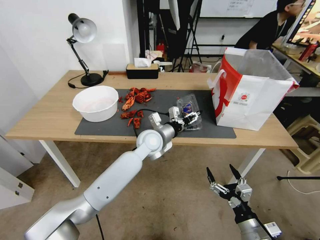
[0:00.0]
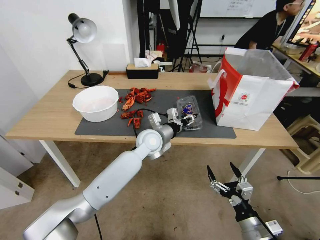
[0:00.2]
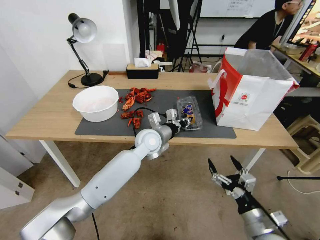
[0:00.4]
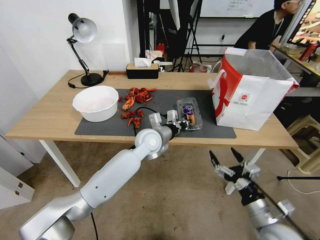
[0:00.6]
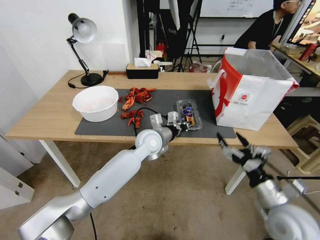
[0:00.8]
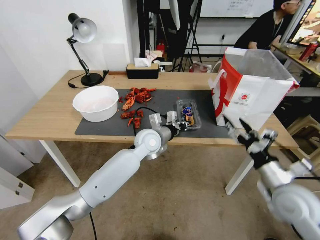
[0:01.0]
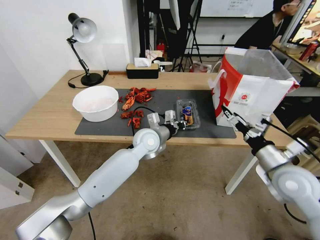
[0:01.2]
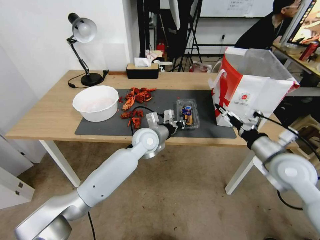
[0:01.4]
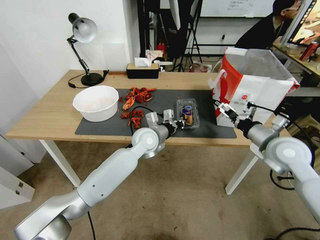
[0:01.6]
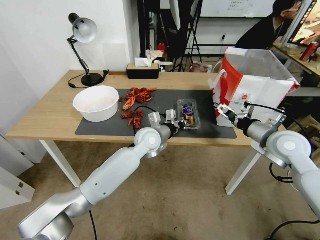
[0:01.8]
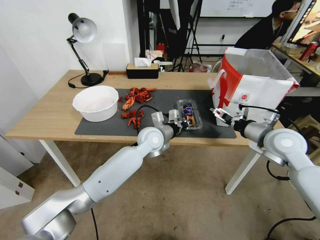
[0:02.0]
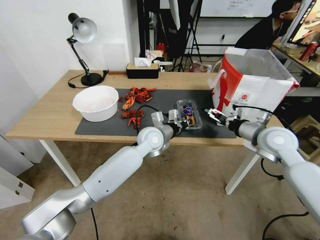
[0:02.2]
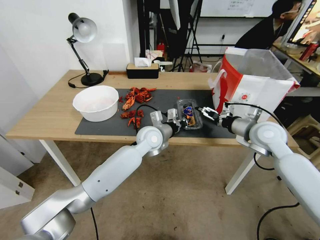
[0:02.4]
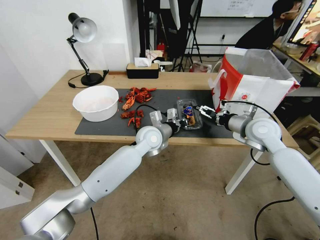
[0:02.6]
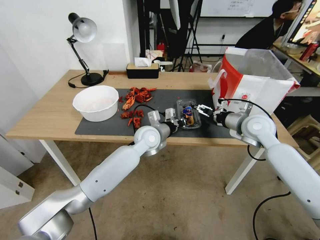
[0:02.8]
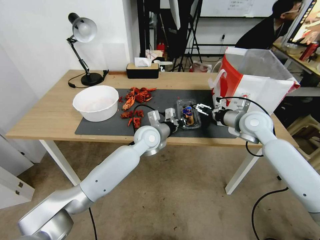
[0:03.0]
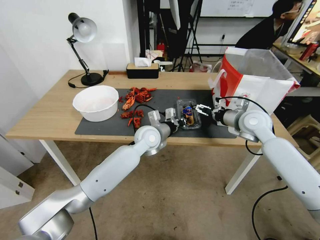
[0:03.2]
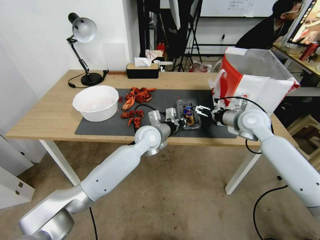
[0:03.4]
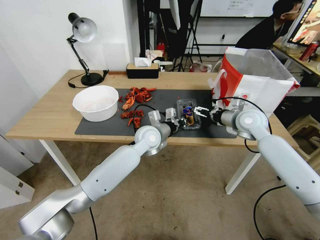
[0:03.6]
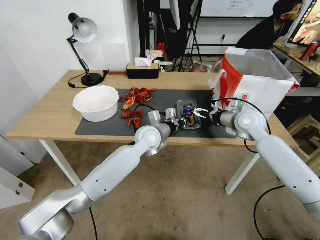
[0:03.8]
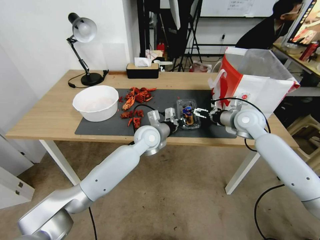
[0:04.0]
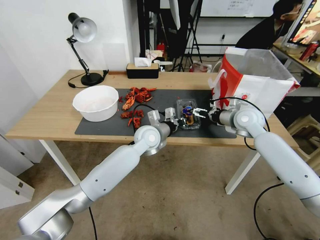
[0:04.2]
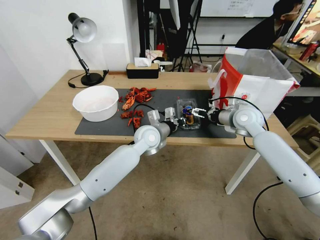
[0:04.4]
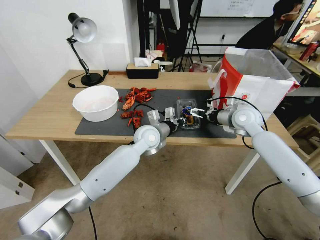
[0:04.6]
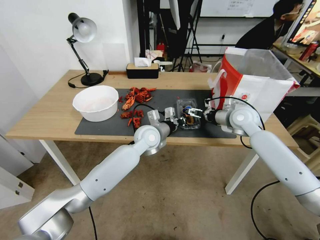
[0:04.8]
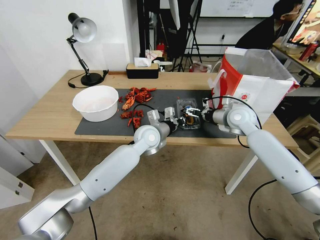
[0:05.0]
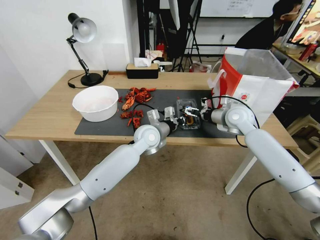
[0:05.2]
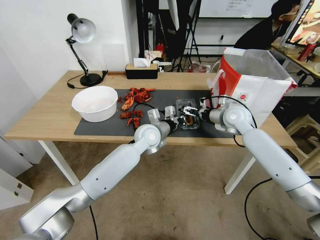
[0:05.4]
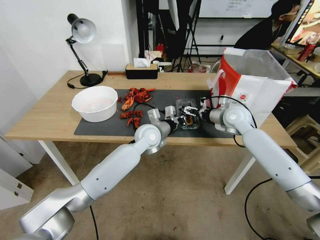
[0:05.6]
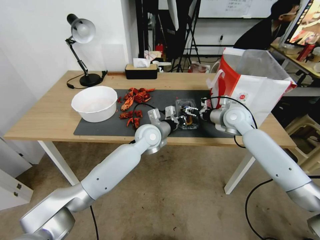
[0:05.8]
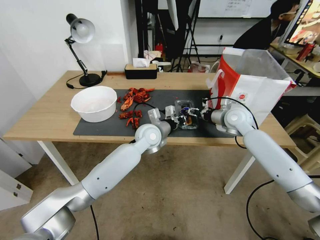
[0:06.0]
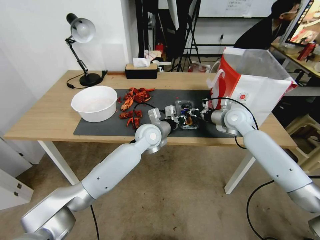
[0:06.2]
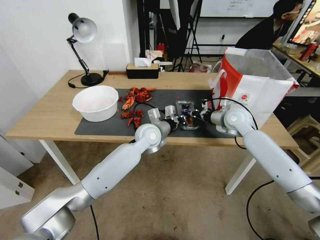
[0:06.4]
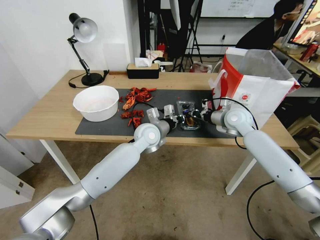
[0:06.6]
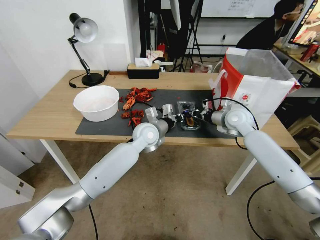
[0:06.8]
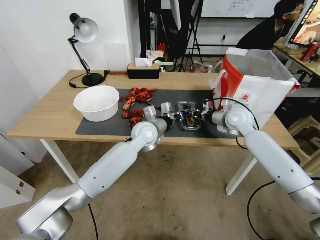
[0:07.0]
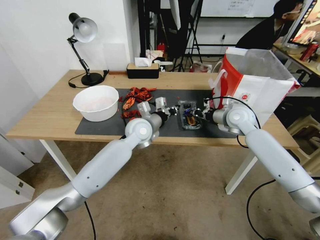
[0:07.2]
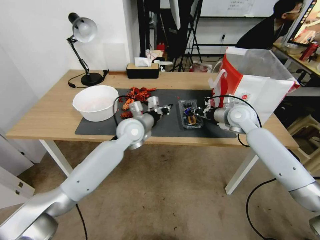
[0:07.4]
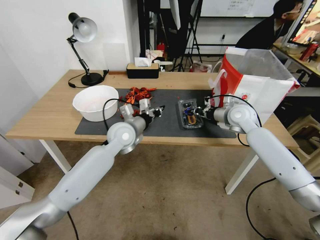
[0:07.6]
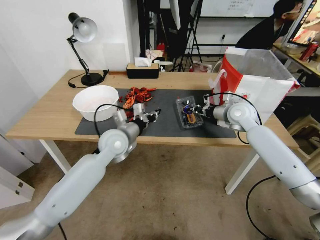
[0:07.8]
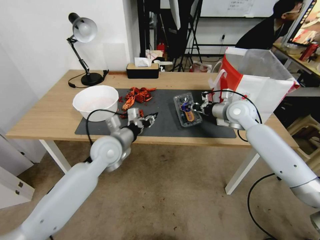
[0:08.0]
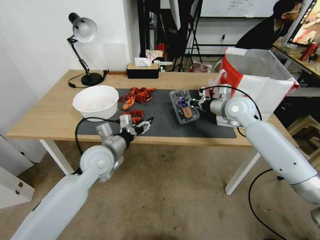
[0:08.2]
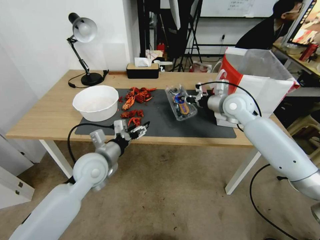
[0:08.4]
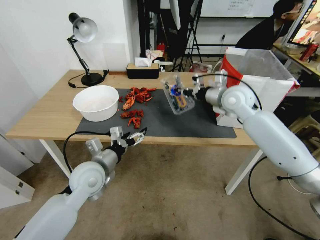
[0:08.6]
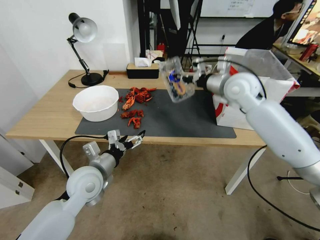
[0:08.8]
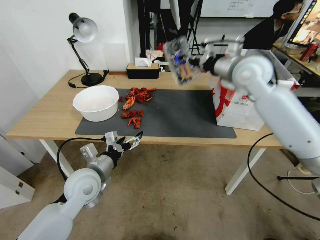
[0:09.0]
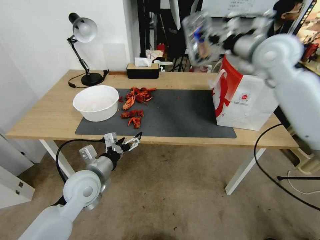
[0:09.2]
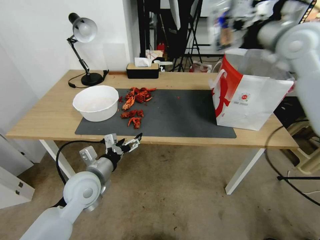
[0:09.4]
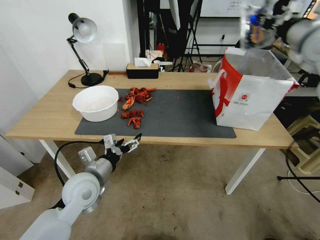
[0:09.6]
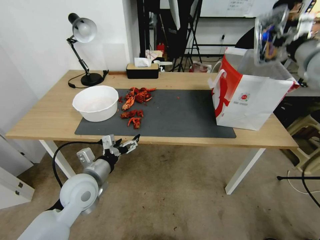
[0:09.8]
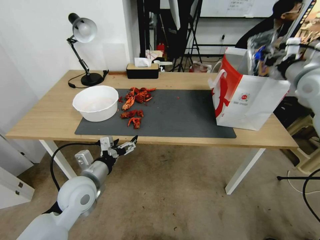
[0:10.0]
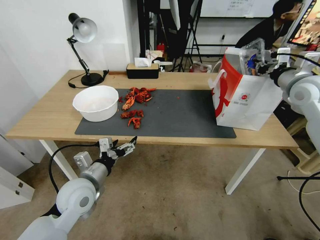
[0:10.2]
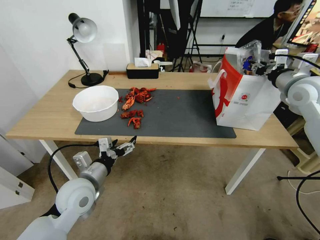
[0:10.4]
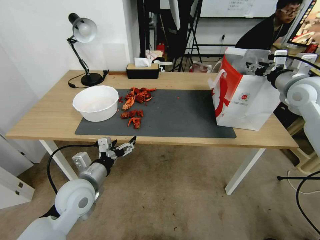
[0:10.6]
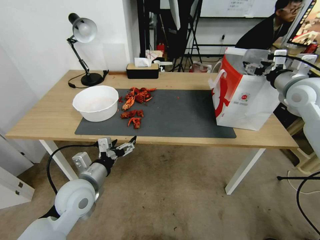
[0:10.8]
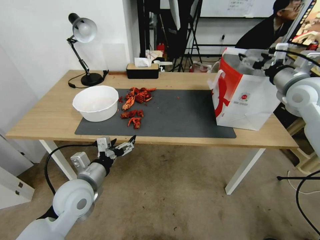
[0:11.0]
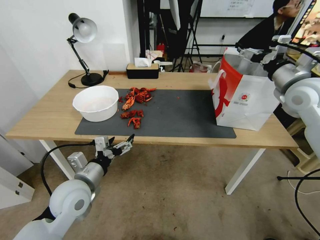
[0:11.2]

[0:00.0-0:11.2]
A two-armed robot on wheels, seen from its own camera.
Task of the whole recording: Close the takeout container lid, then place the container into the takeout bag.
0:00.0 to 0:01.6: The right gripper travels forward and upward by approximately 30 cm; the left gripper closes.
0:01.6 to 0:03.2: The right gripper is displaced forward by roughly 10 cm.
0:03.2 to 0:04.8: The grippers make only small movements.
0:04.8 to 0:06.4: The right gripper closes up.
0:06.4 to 0:08.0: The left gripper goes some 15 cm to the left and backward.
0:08.0 to 0:09.6: The right gripper heads upward, covering approximately 25 cm; the left gripper is displaced backward and to the left by roughly 10 cm, and opens up.
0:09.6 to 0:11.2: The right gripper travels downward by some 10 cm, and opens up.

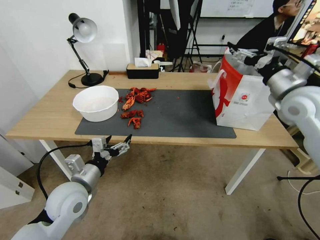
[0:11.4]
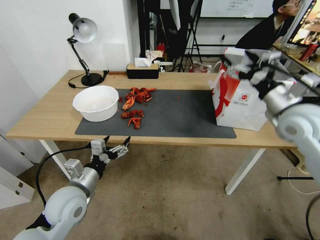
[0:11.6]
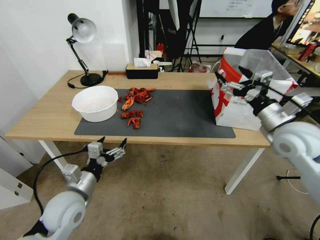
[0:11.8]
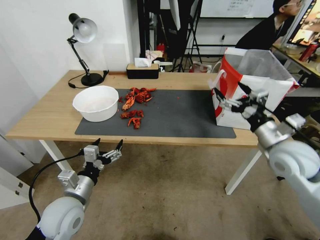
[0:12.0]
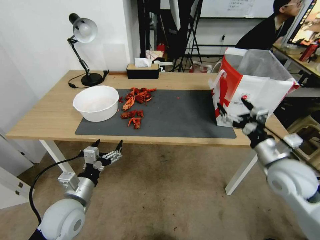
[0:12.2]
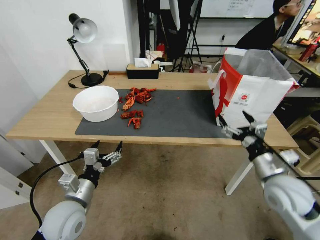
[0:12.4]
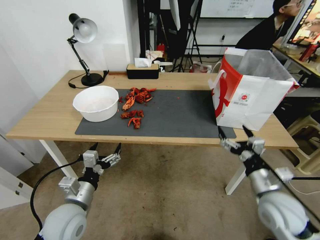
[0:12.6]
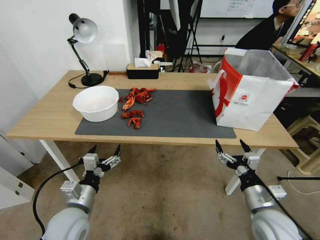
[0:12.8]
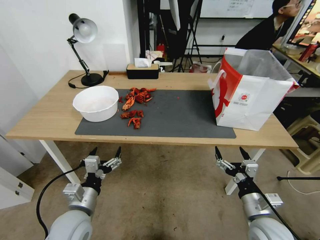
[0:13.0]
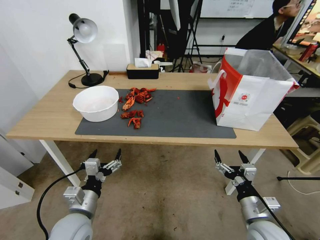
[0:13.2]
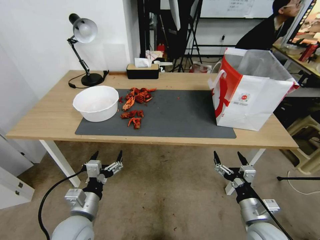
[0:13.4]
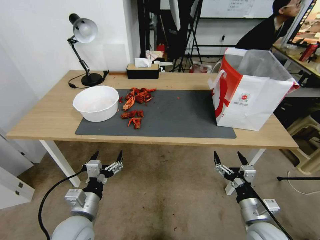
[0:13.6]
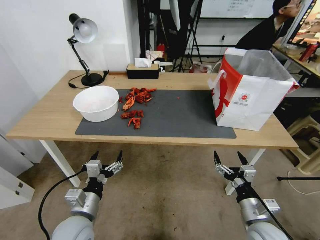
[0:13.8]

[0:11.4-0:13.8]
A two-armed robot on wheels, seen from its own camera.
Task of the whole recording: Close the takeout container lid, then place the container into the takeout bag.
0:11.4 to 0:12.6: The left gripper moves roughly 5 cm. The right gripper goes roughly 30 cm downward and backward.
0:12.6 to 0:13.8: The right gripper heads downward, covering approximately 5 cm.
